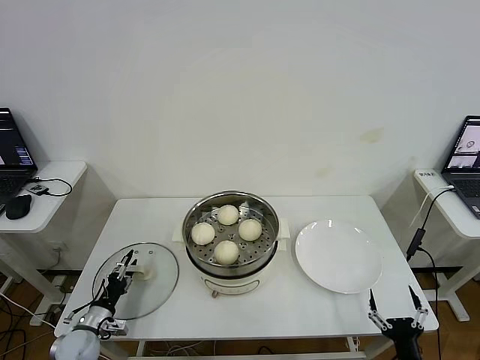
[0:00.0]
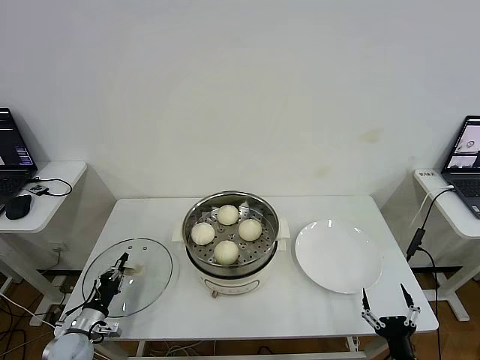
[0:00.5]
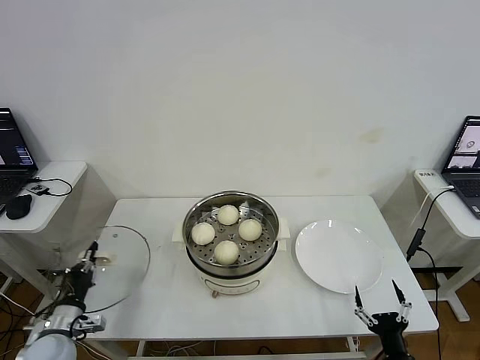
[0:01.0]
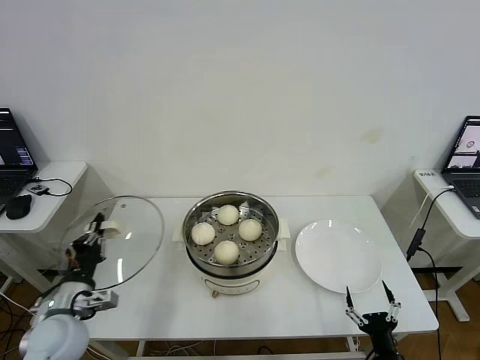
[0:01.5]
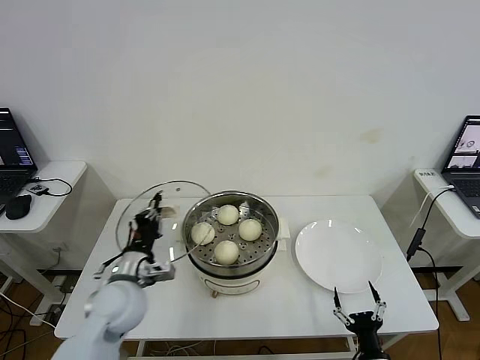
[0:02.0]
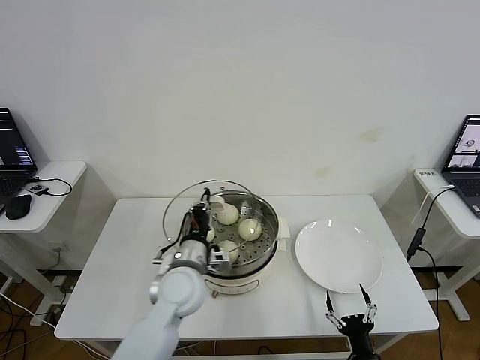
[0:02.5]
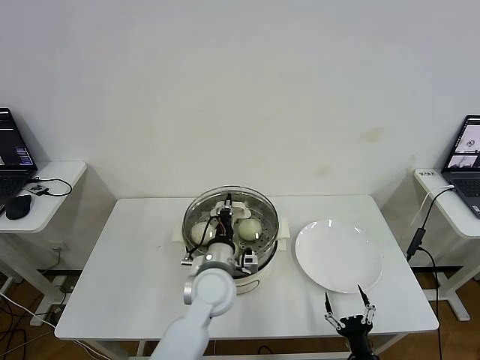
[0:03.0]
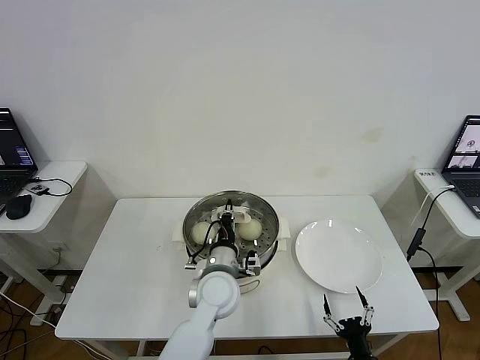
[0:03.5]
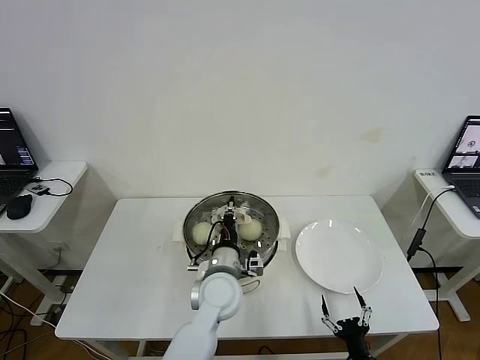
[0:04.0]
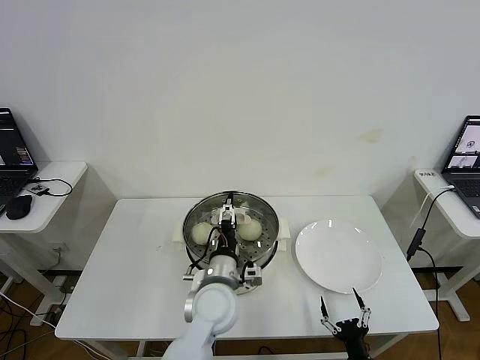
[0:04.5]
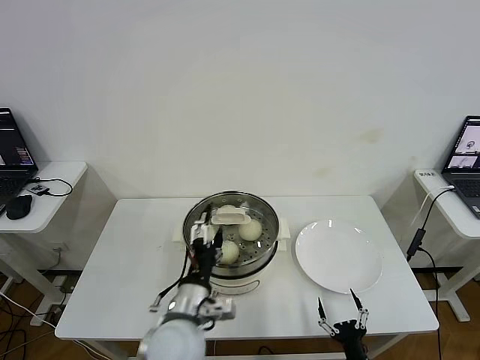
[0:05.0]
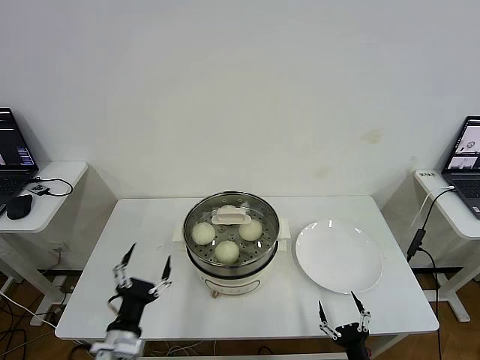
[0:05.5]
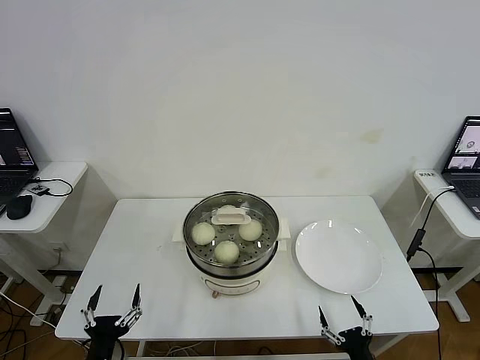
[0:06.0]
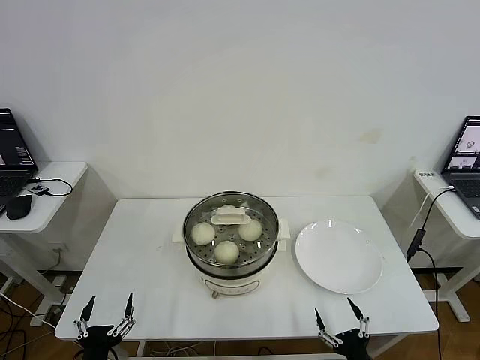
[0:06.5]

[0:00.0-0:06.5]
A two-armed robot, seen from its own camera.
Step, 0:01.0 to 0:04.0: Place the pot lid on the steamer with left gripper.
0:00.0 to 0:02.0: The left gripper goes approximately 25 cm upward and to the right, and closes up. Meanwhile the right gripper shifts about 5 cm to the left.
0:02.0 to 0:04.5: The left gripper moves to the right, some 20 cm, and opens its fingers.
0:04.5 to 0:06.5: The right gripper moves upward, roughly 5 cm, while the left gripper shifts approximately 35 cm to the left and backward.

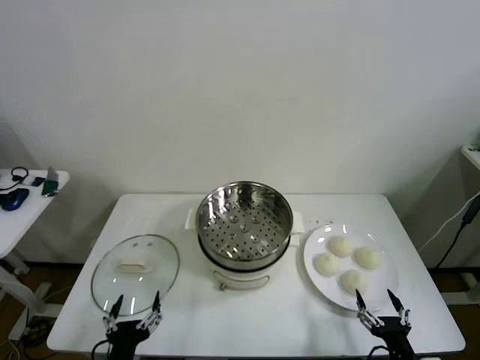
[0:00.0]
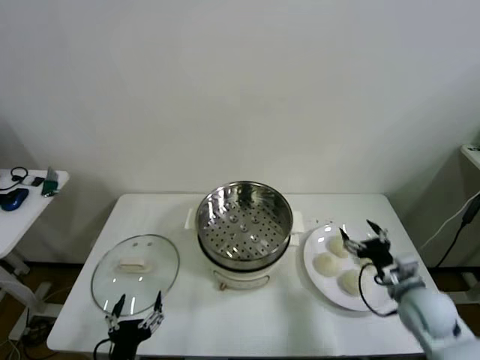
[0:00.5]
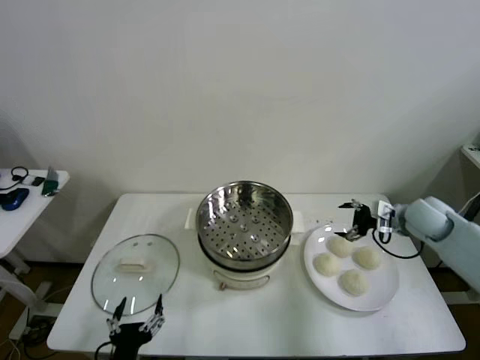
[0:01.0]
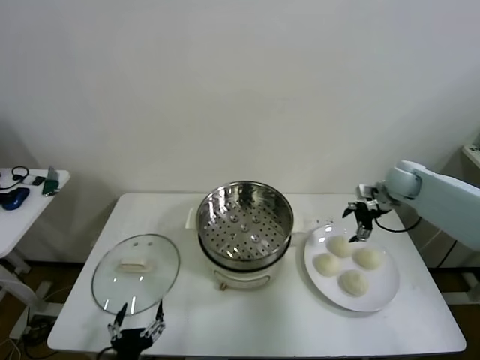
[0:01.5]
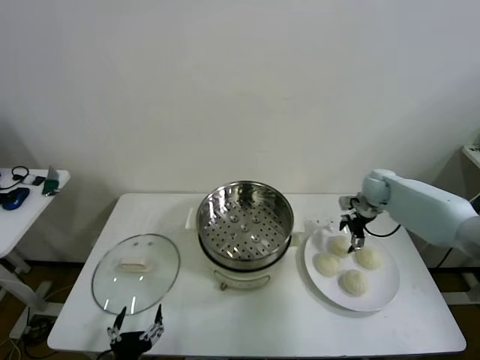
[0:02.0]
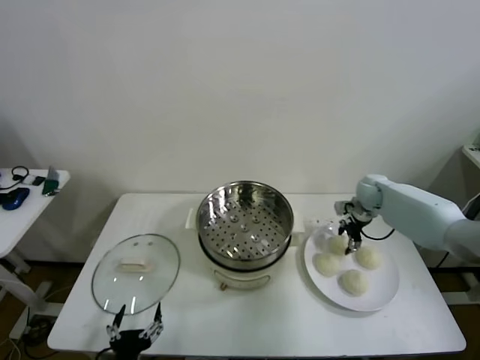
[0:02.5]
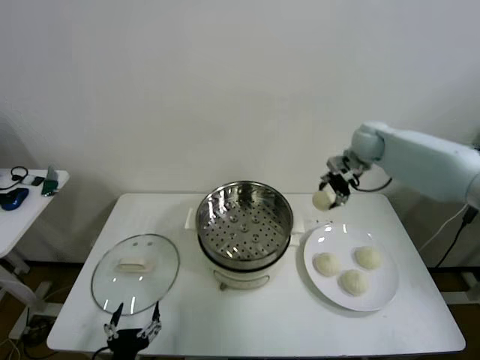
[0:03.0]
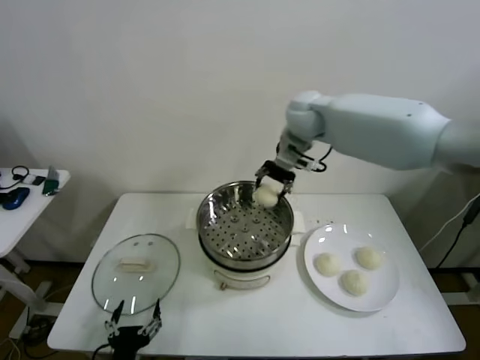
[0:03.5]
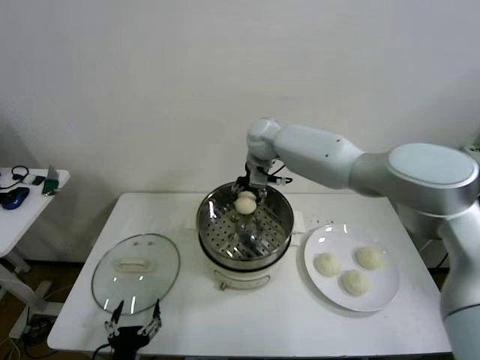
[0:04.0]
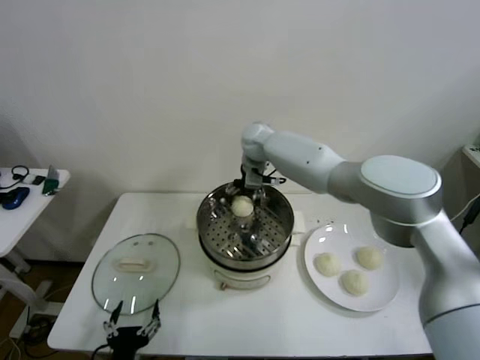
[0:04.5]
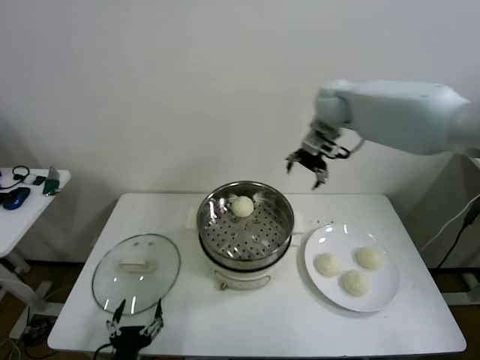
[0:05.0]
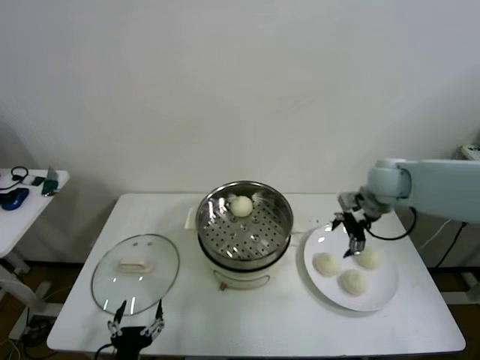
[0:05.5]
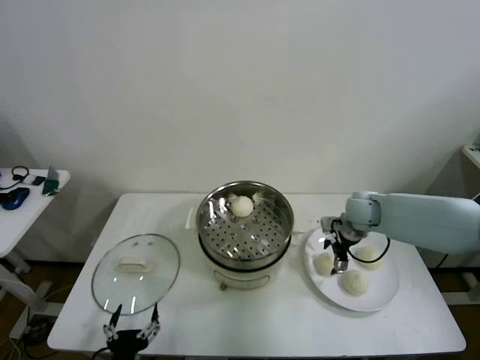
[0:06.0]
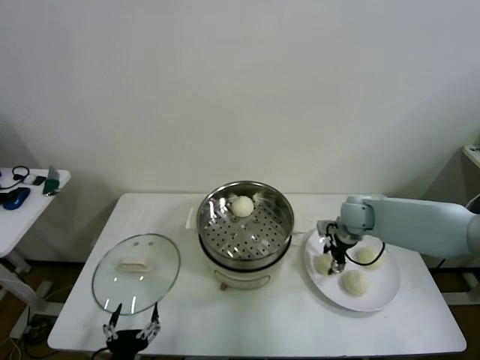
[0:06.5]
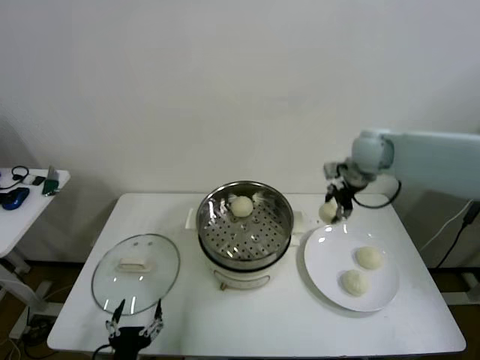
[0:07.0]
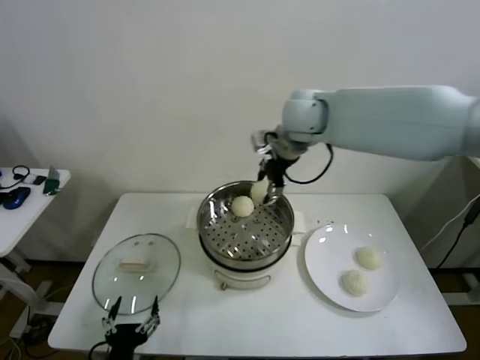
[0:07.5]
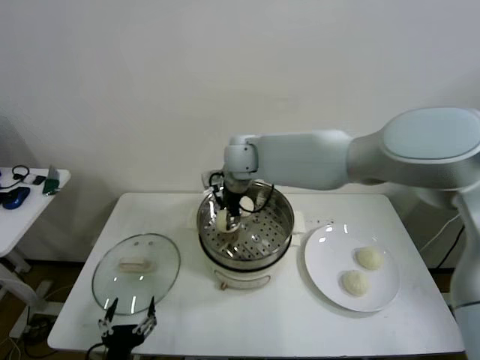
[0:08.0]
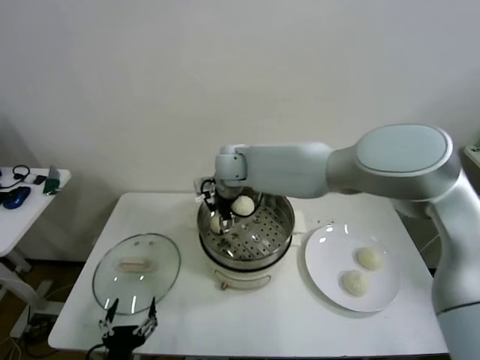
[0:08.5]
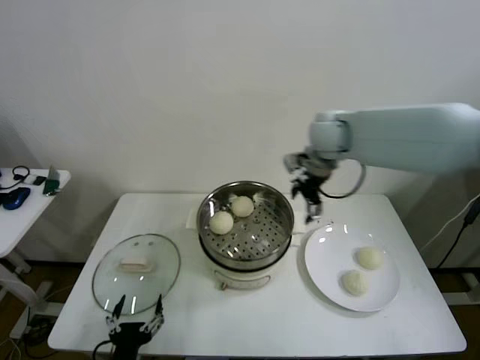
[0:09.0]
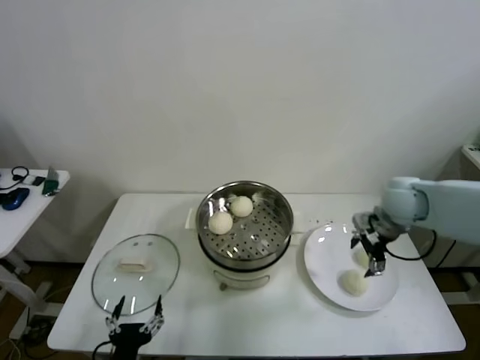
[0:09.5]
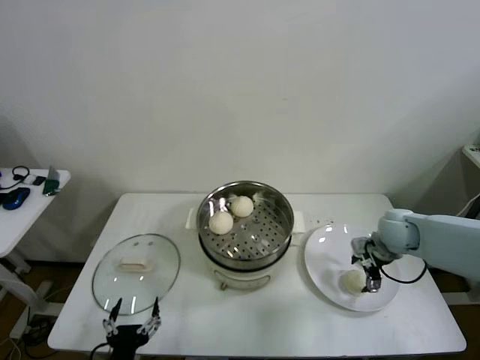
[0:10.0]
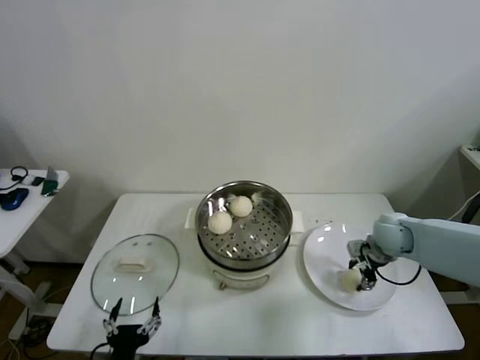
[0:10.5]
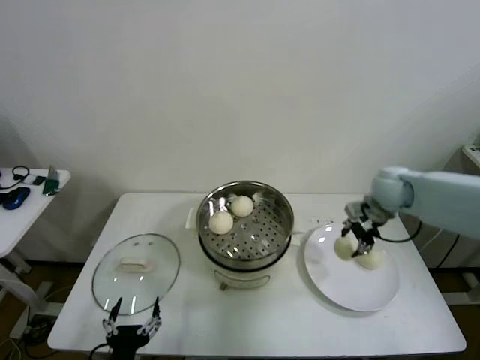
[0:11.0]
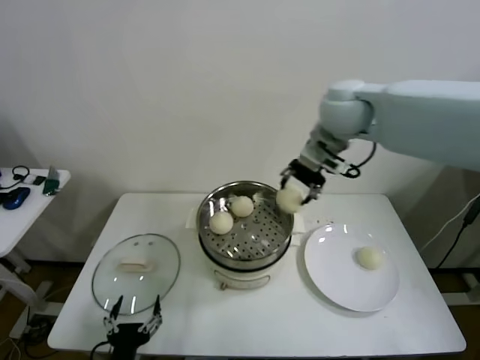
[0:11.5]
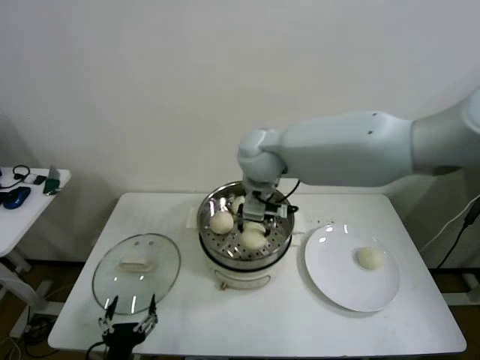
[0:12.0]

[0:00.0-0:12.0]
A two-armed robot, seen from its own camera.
Step, 0:00.0 to 0:02.0: Grasp the baozi in the plate with right gripper.
Step, 0:03.0 to 0:04.0: Place the baozi on the steamer with right gripper.
Step, 0:05.0 to 0:06.0: Grasp the baozi in the plate with right gripper.
Step, 0:06.5 to 0:08.0: Place the baozi on the steamer with right gripper.
Step, 0:08.5 to 0:10.5: Grasp the baozi in the plate with right gripper.
0:02.0 to 0:04.0: The right gripper is displaced to the left and upward by about 35 cm, and closes.
0:04.0 to 0:06.0: The right gripper heads to the right, downward and backward, covering roughly 30 cm, and opens.
0:06.0 to 0:08.0: The right gripper moves to the left and upward, some 35 cm, and closes up.
0:08.0 to 0:10.0: The right gripper goes roughly 40 cm to the right and downward, and opens its fingers.
0:10.0 to 0:12.0: The right gripper shifts approximately 40 cm to the left and upward, and closes up.

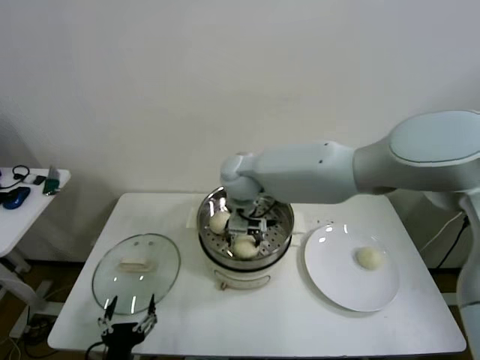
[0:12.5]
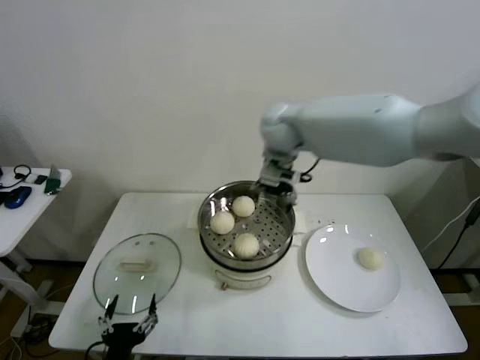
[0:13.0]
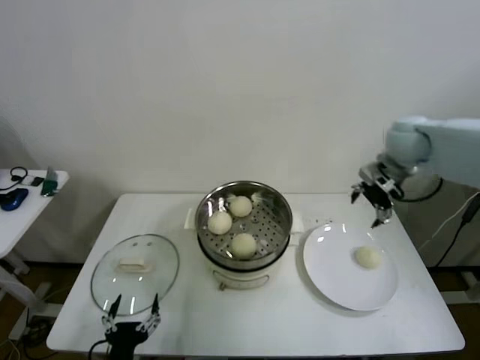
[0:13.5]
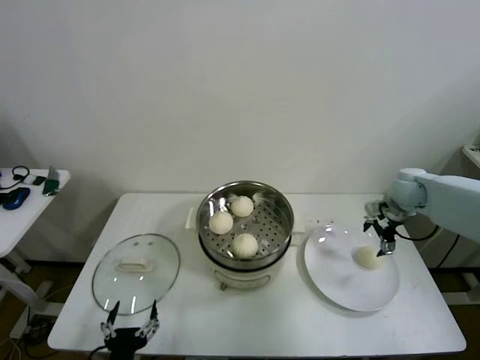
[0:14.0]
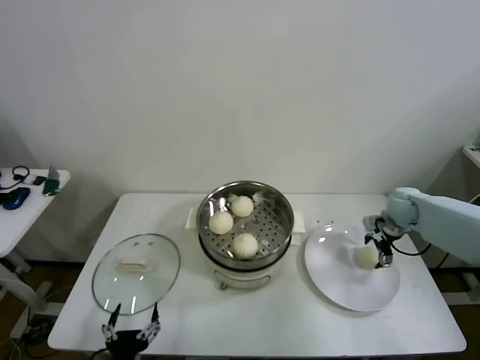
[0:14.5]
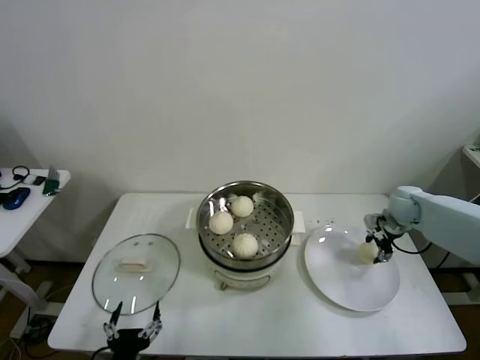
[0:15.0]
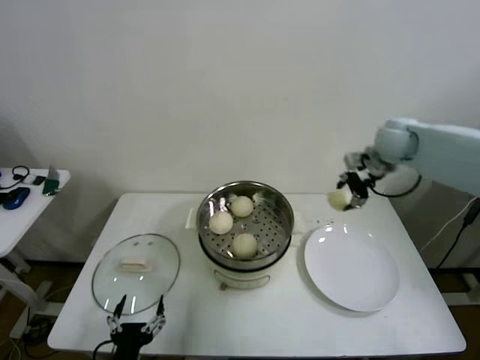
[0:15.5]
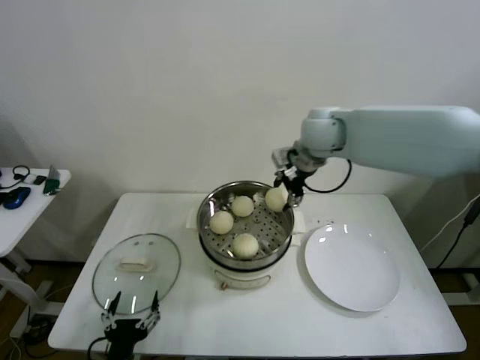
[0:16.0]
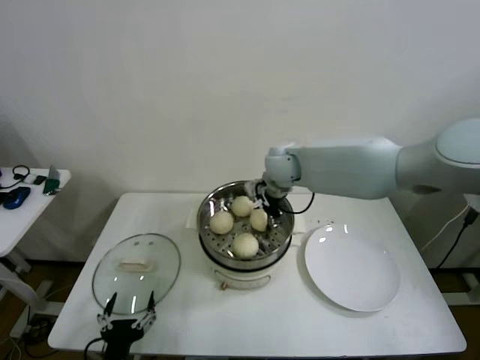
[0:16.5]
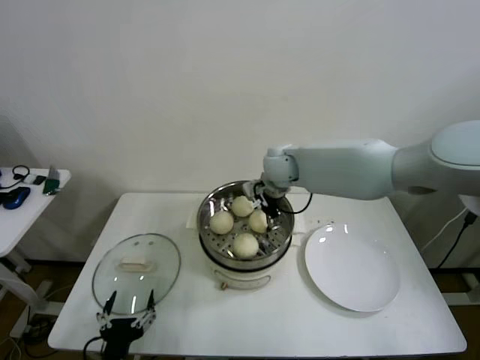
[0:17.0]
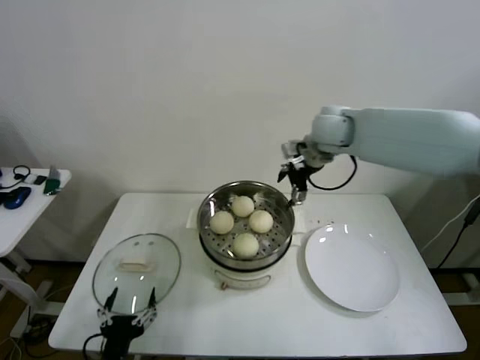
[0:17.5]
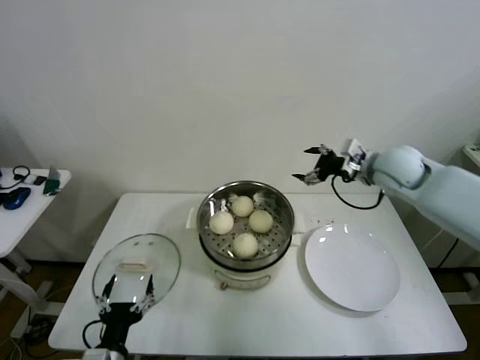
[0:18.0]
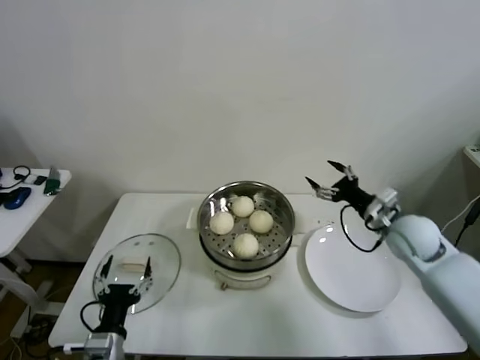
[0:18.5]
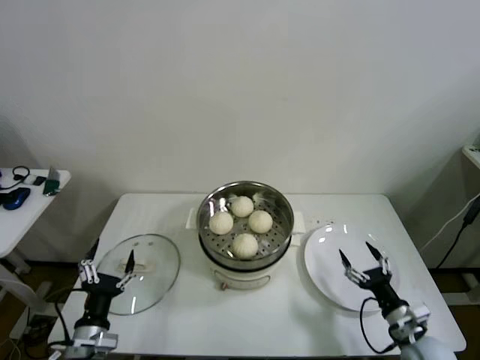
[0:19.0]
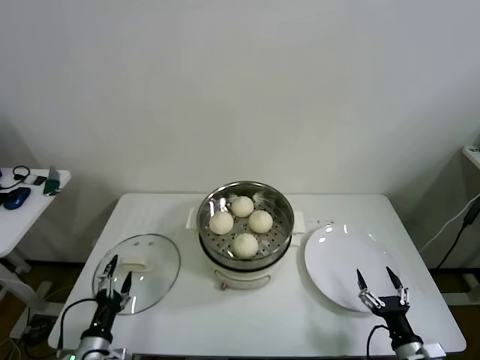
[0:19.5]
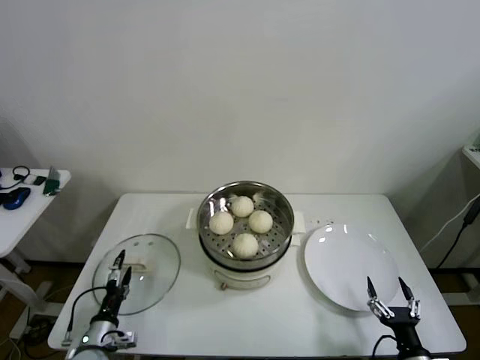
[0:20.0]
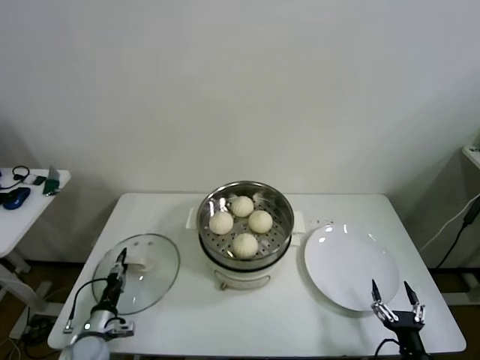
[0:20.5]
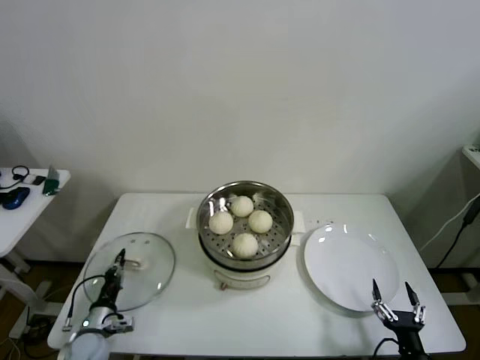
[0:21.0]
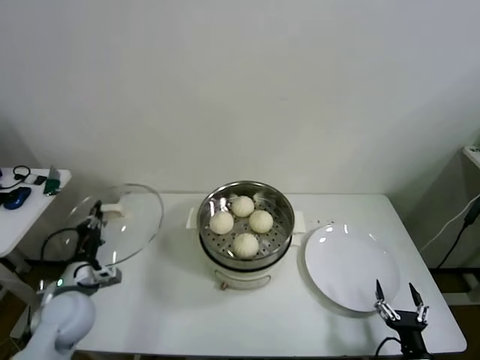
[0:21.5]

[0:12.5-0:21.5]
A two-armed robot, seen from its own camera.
Step, 0:13.0 to 0:14.5: Grasp the baozi in the plate with right gripper.
Step, 0:15.0 to 0:16.5: Place the baozi on the steamer with right gripper.
Step, 0:17.0 to 0:20.5: Grasp the pot lid with left gripper.
0:12.5 to 0:14.5: The right gripper is displaced to the right by approximately 40 cm, and opens.
0:14.5 to 0:17.0: The right gripper goes roughly 35 cm to the left, and closes, then reopens.
0:17.0 to 0:19.5: The right gripper goes approximately 60 cm backward, downward and to the right, while the left gripper goes approximately 10 cm to the left, forward and downward.
0:19.5 to 0:21.5: The left gripper shifts some 15 cm forward and upward, and closes its fingers.
